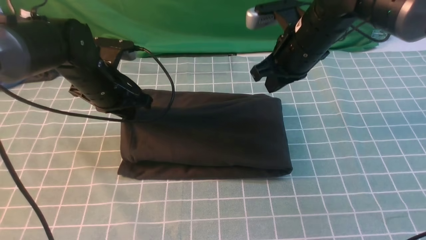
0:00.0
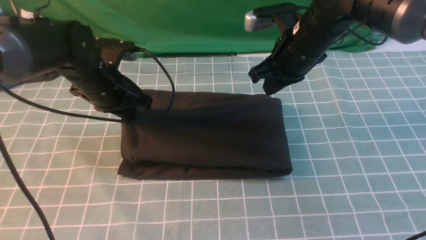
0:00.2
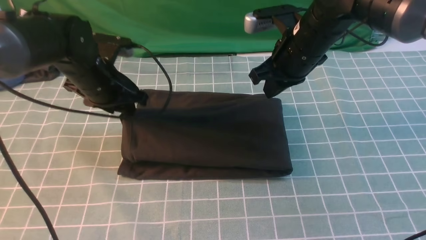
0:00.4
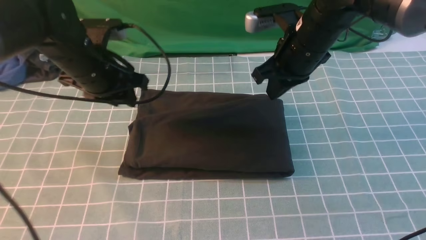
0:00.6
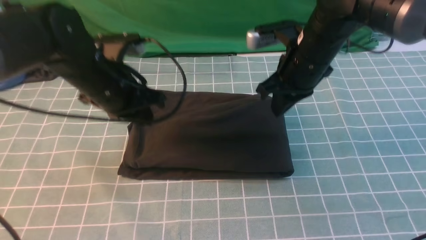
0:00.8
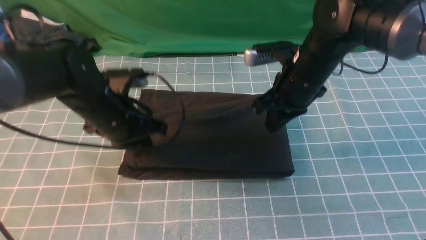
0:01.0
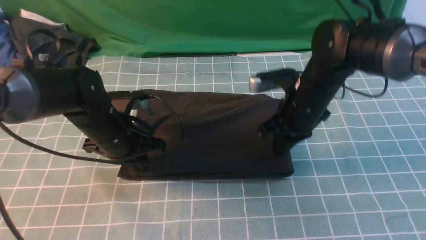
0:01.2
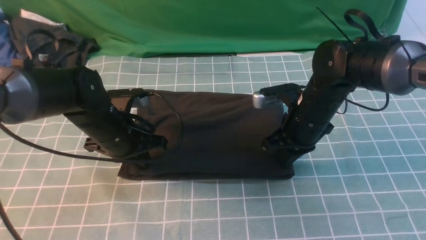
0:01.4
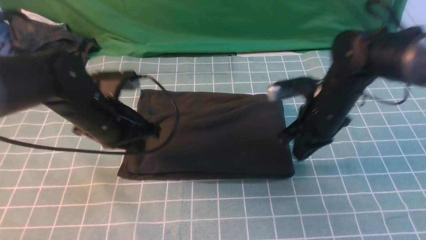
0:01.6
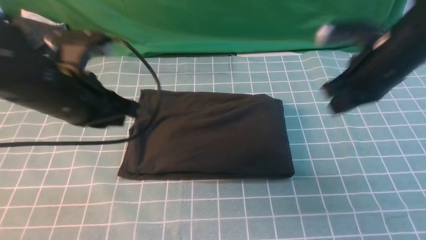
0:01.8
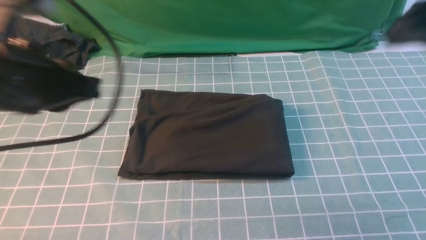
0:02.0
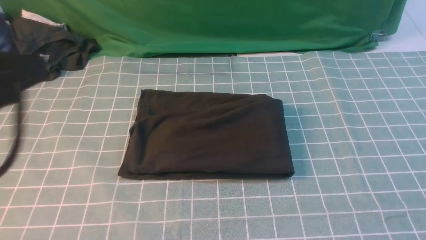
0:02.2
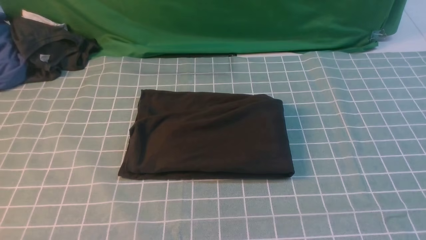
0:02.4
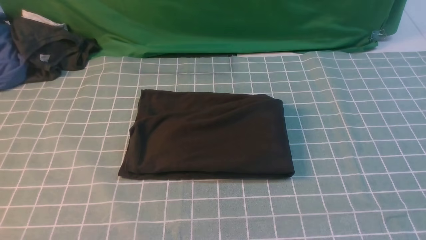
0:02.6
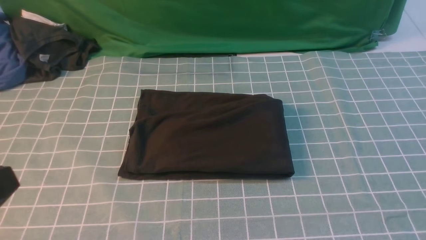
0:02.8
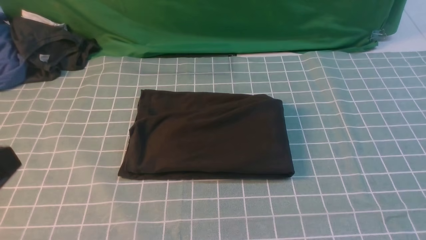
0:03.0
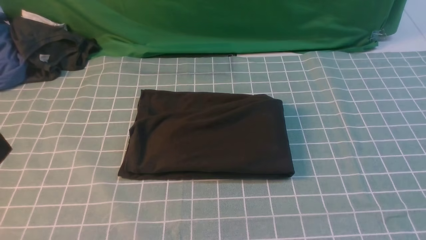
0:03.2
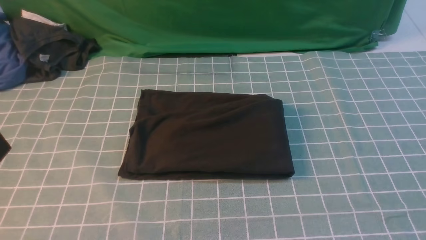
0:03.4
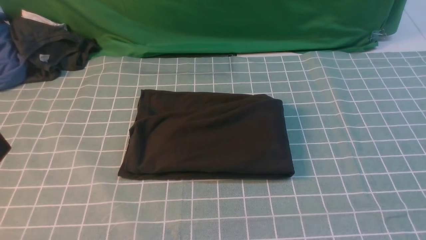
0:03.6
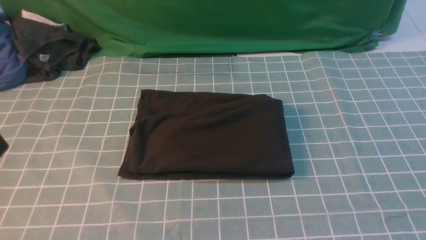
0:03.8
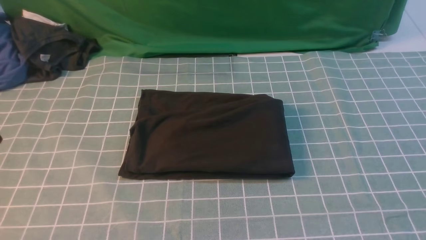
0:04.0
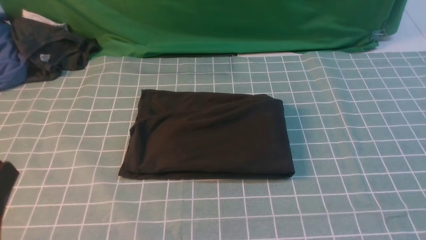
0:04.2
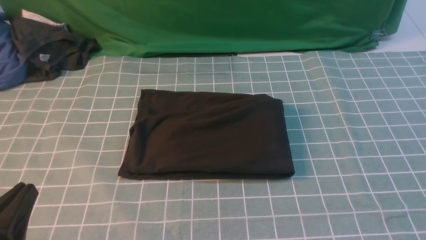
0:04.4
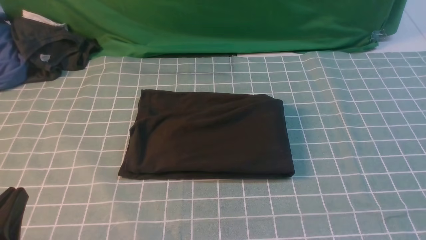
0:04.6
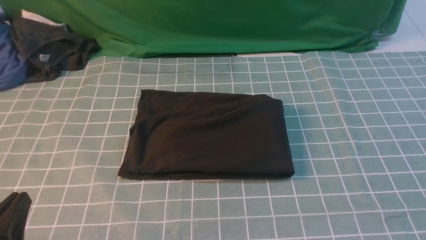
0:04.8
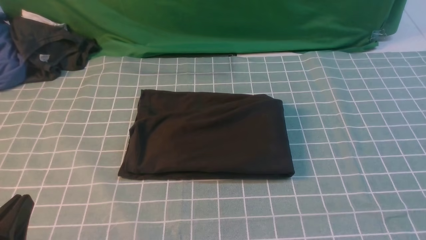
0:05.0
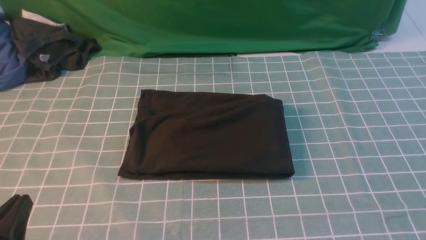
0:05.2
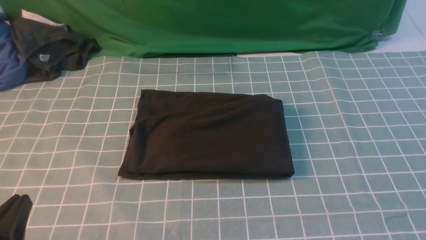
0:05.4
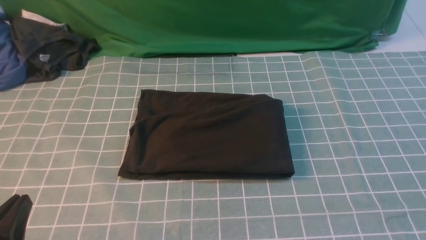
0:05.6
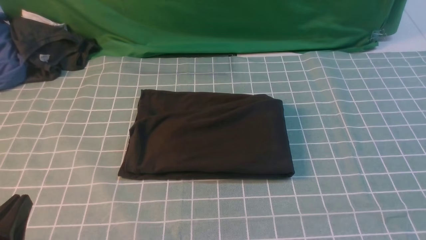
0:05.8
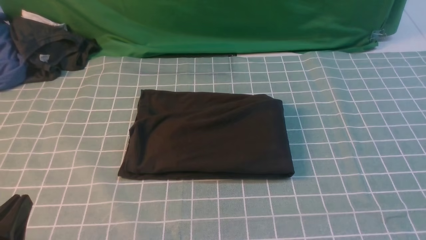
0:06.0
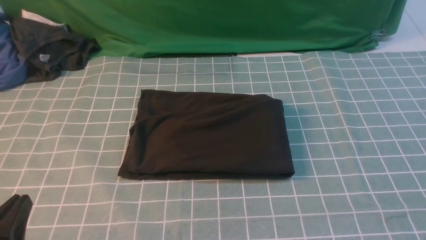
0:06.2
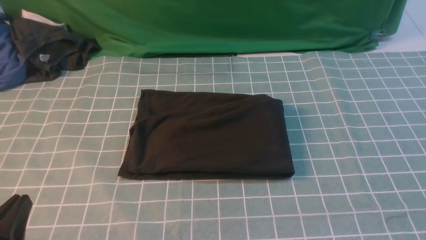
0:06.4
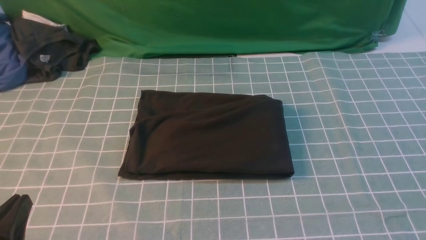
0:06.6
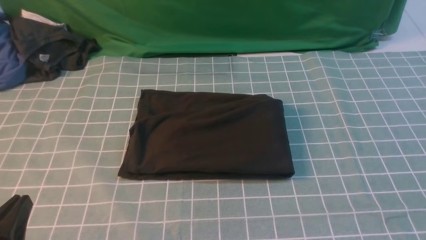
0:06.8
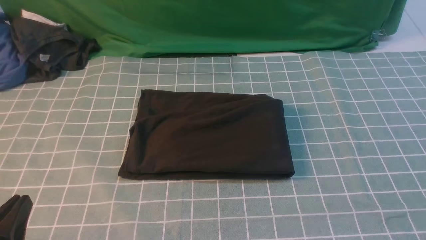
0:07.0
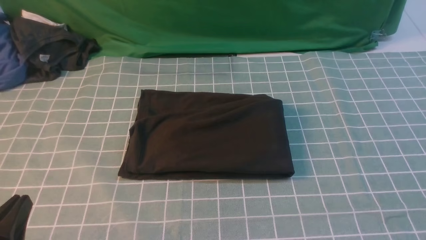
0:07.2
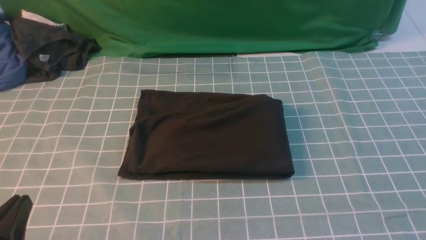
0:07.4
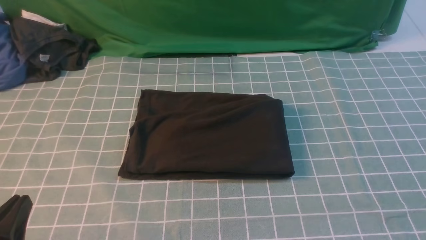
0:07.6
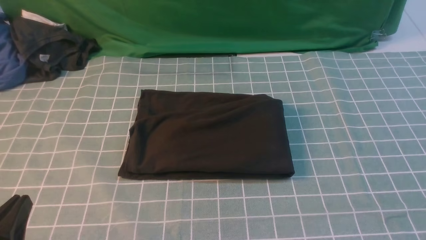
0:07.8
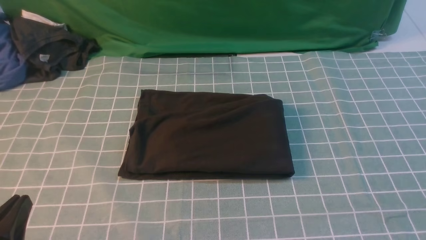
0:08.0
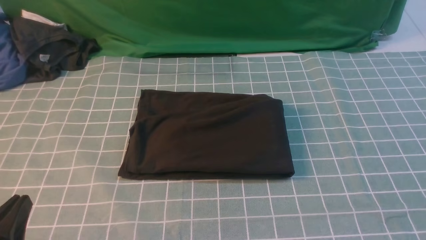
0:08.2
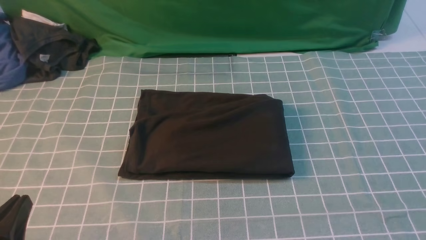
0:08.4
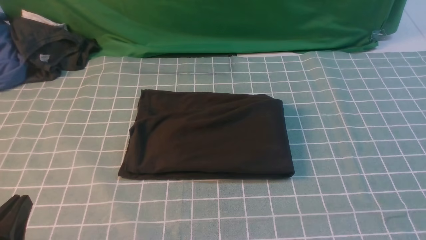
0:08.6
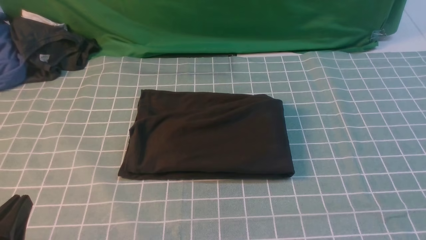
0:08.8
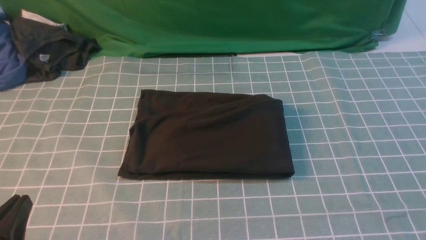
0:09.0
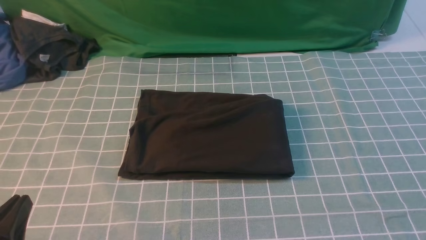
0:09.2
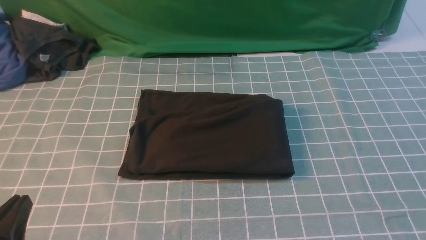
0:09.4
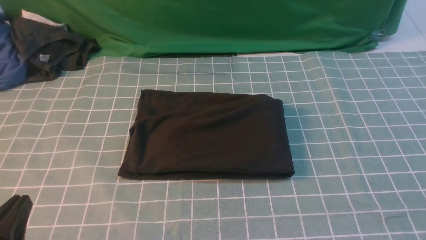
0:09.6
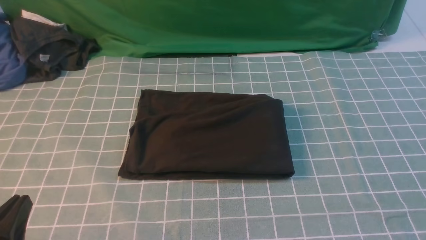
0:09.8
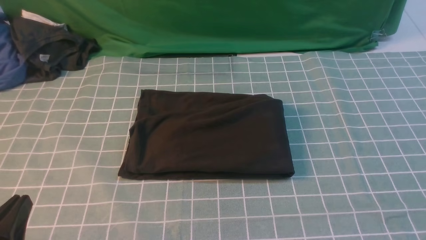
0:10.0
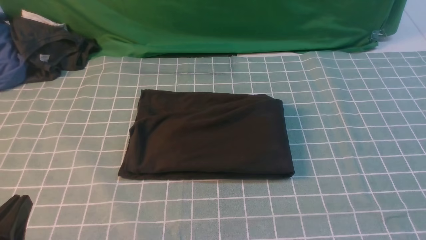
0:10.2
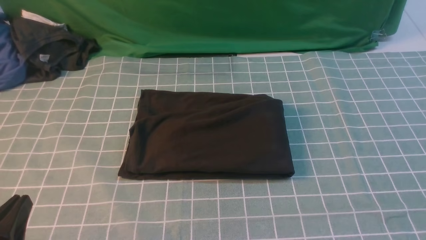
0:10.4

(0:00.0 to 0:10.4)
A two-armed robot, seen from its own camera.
0:00.0 - 0:01.4: The left gripper shifts about 5 cm backward, and opens, then closes once more, while the right gripper is displaced downward by roughly 10 cm.
0:01.4 - 0:03.0: The left gripper is displaced backward and upward by about 30 cm, while the right gripper heads backward, to the right and upward, covering about 40 cm.
0:03.0 - 0:04.4: The left gripper goes about 10 cm downward.
0:07.4 - 0:10.4: Both grippers stay put.

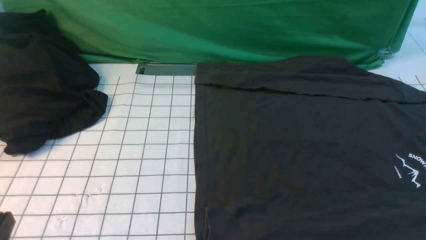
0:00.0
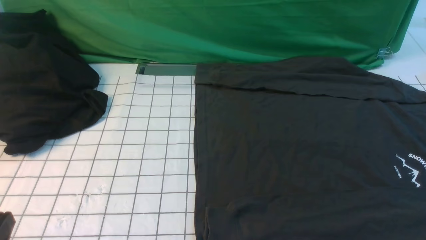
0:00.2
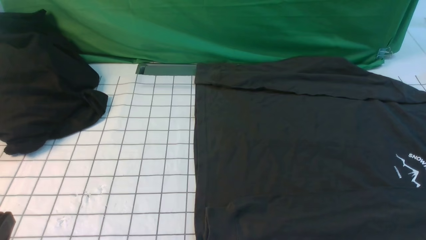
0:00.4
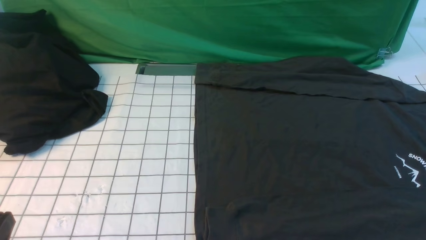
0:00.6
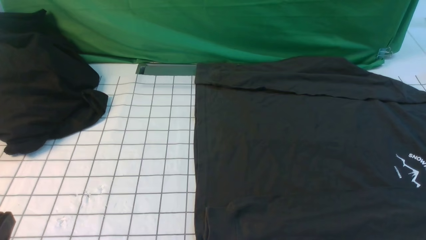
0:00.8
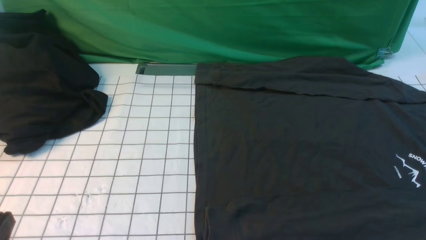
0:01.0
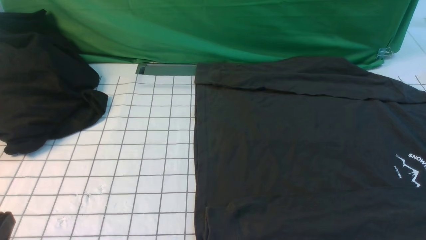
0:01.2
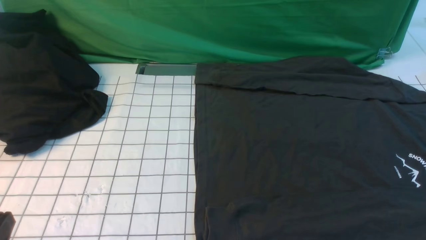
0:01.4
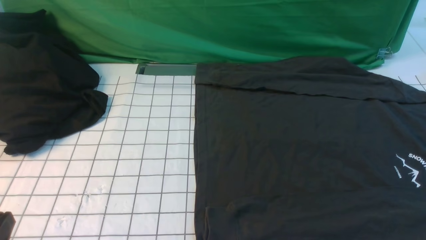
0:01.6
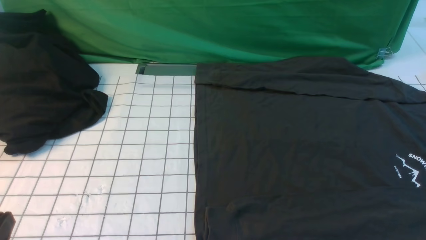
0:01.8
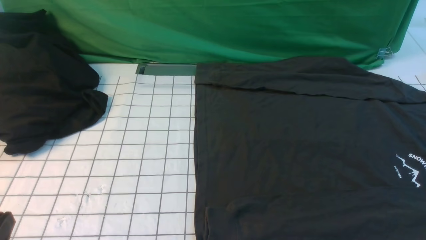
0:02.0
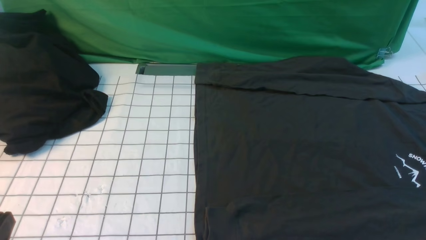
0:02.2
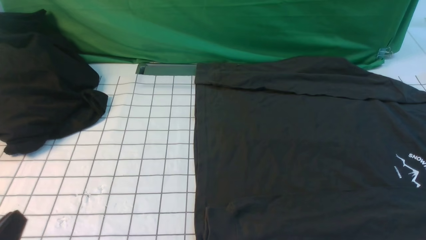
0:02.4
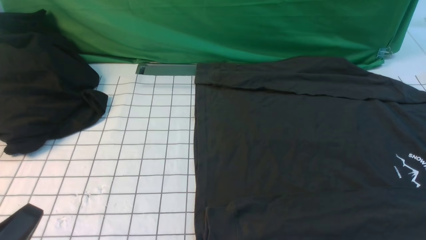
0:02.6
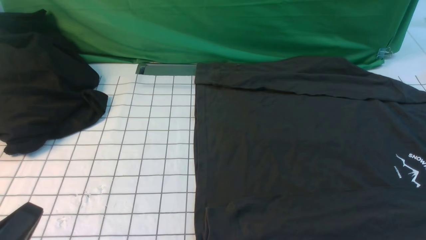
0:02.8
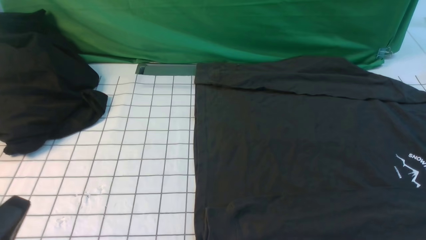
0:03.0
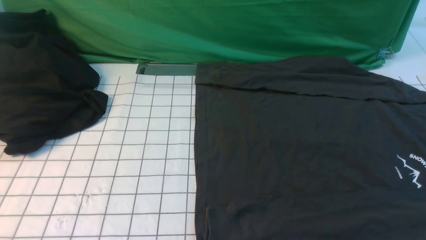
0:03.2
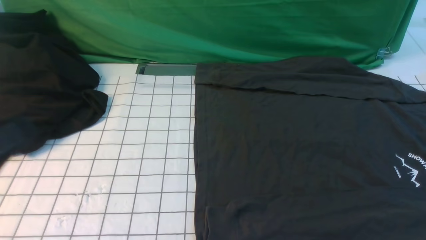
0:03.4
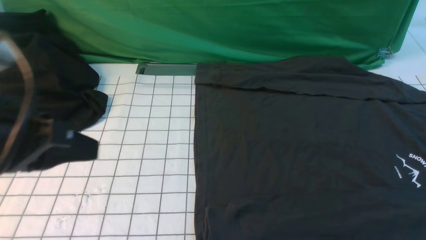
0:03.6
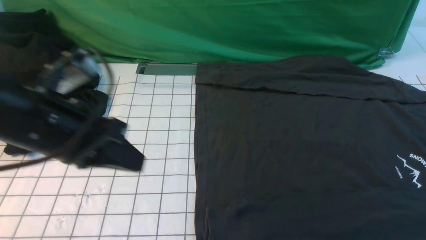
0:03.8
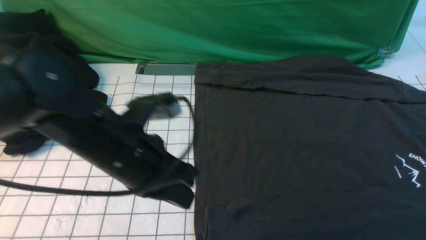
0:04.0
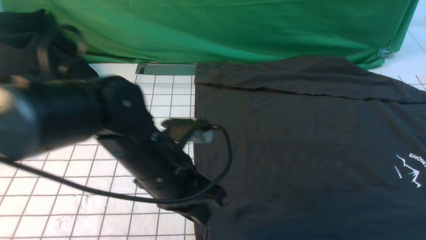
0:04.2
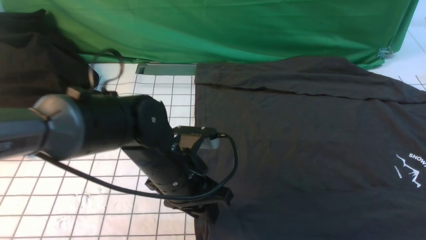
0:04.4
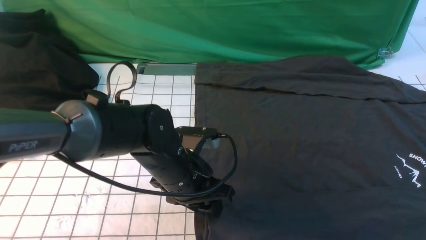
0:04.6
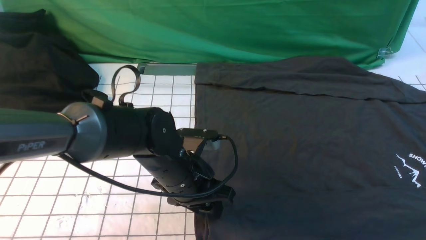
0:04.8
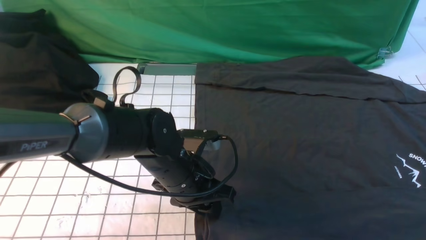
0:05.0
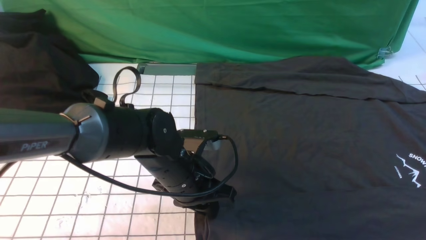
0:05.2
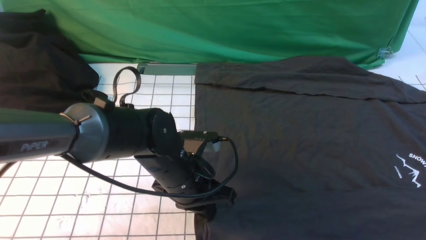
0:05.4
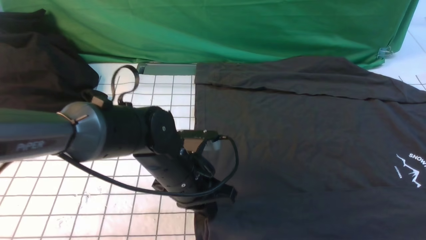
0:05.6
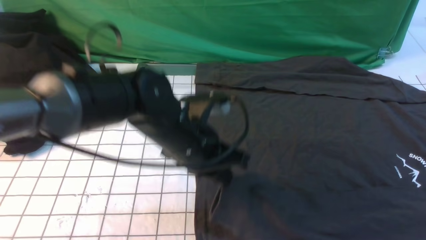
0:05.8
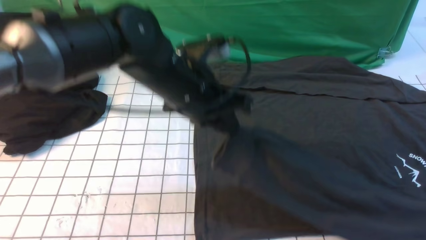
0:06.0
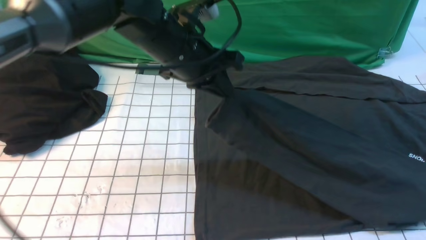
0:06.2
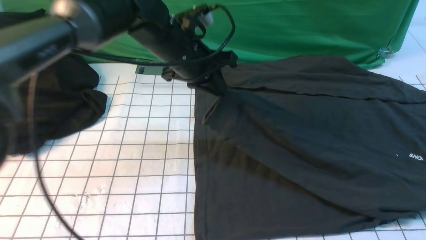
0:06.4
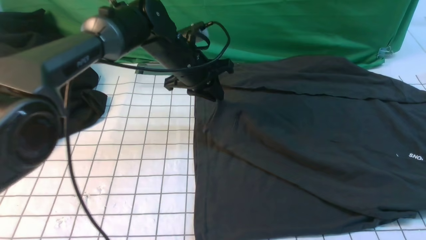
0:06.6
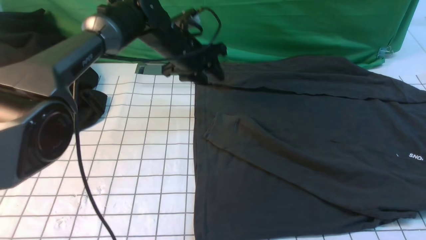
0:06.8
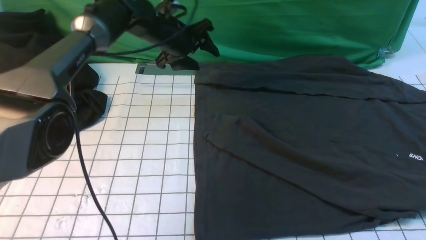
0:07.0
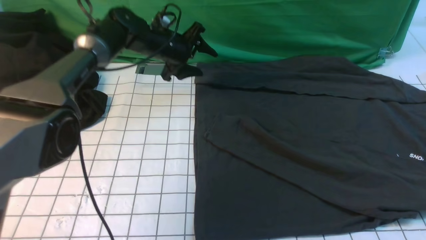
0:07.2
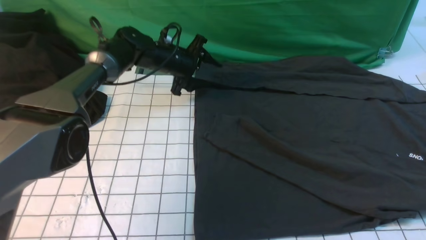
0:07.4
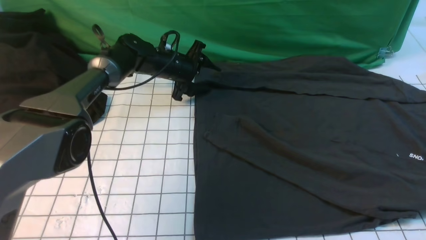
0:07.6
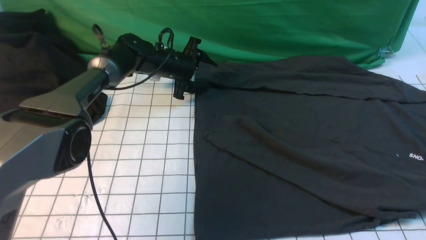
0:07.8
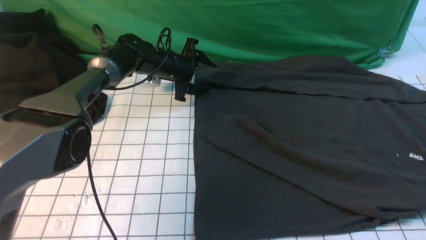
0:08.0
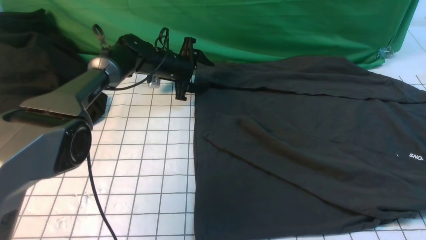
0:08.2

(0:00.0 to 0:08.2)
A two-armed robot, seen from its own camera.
Step, 0:00.0 - 0:05.4: use the left arm to clamp the cuff closest to it.
Step, 0:05.6 - 0:06.6: use the left arm to drag and place the cuff at the centered position on the left edge of the fabric.
0:00.0 - 0:01.6: The two grippers keep their place.
0:03.2 - 0:05.0: The left gripper heads forward, to the right and downward, covering approximately 30 cm, and opens up. The right gripper travels forward by some 5 cm.
0:05.0 - 0:06.6: The left gripper goes about 20 cm forward and upward.
0:06.6 - 0:08.2: The left gripper heads downward and forward, covering approximately 15 cm, and opens up.
